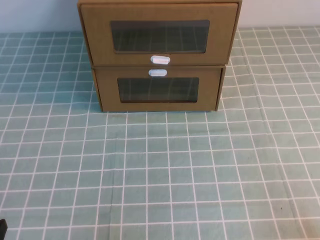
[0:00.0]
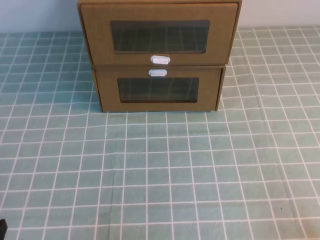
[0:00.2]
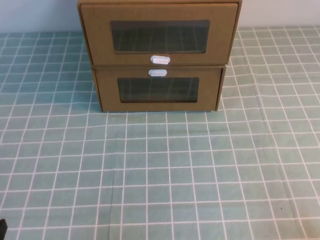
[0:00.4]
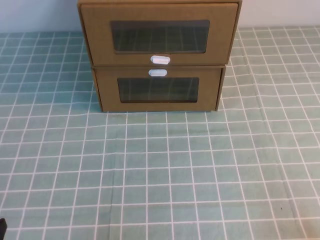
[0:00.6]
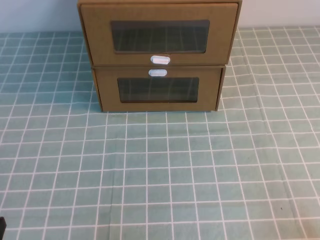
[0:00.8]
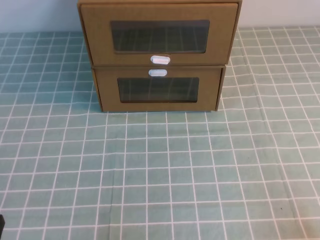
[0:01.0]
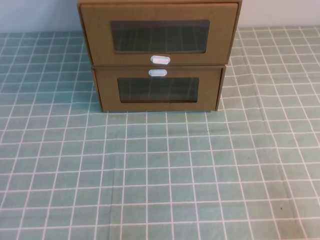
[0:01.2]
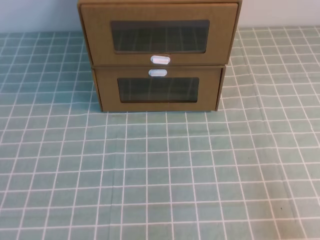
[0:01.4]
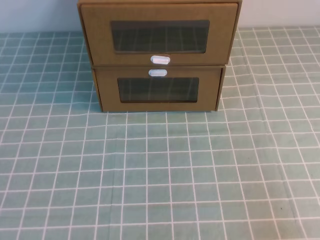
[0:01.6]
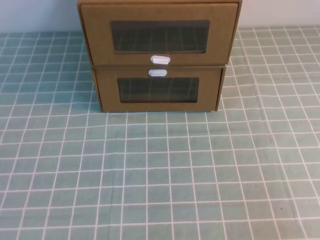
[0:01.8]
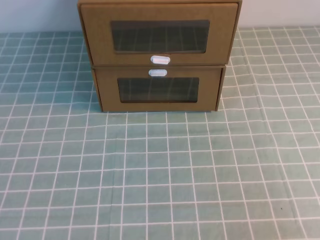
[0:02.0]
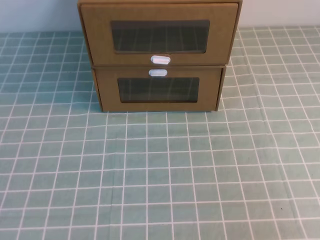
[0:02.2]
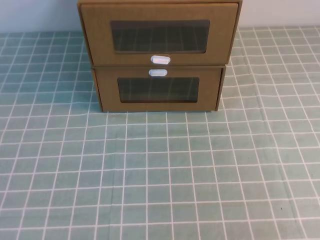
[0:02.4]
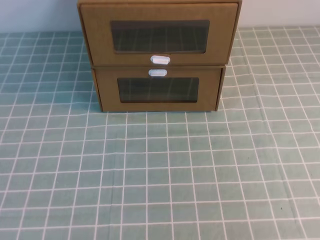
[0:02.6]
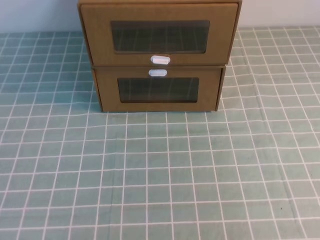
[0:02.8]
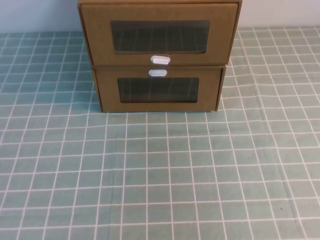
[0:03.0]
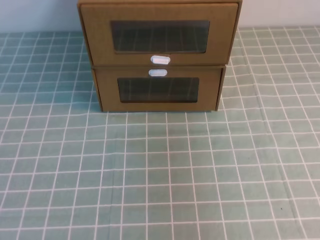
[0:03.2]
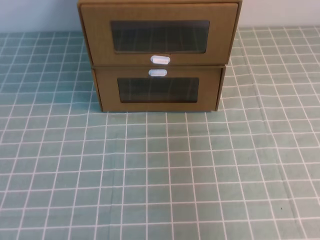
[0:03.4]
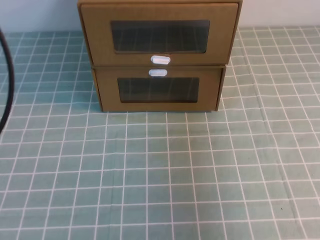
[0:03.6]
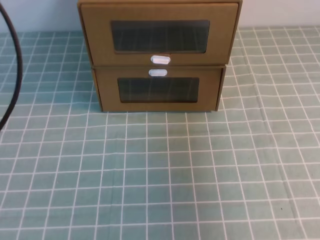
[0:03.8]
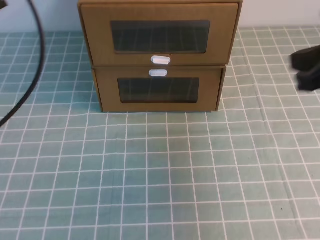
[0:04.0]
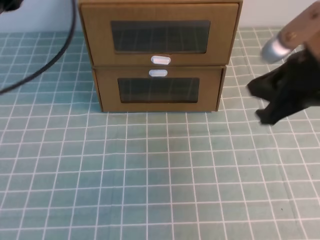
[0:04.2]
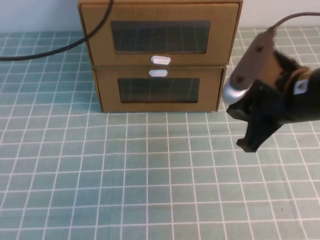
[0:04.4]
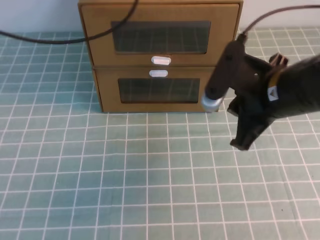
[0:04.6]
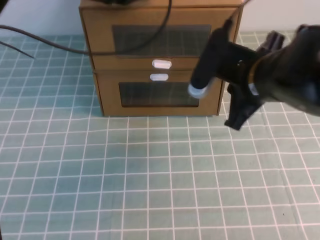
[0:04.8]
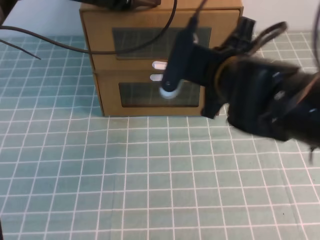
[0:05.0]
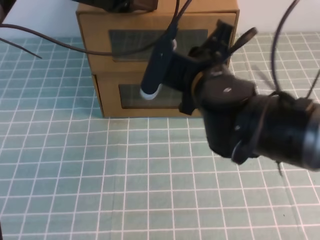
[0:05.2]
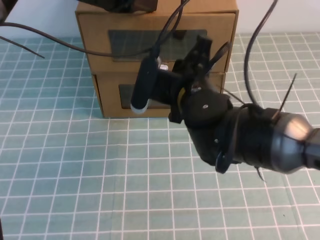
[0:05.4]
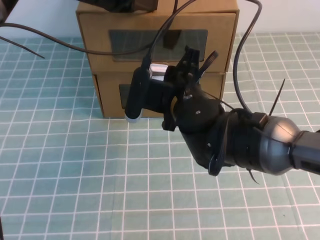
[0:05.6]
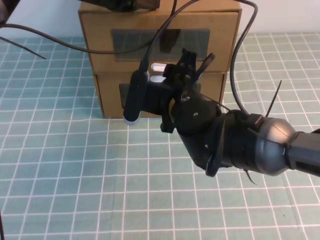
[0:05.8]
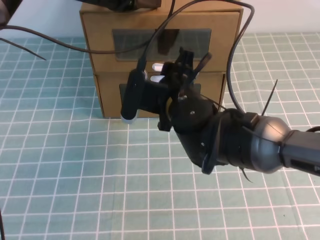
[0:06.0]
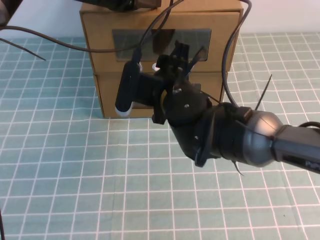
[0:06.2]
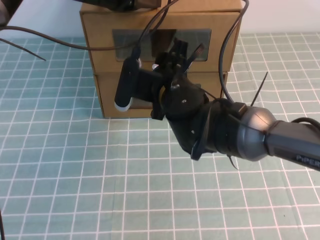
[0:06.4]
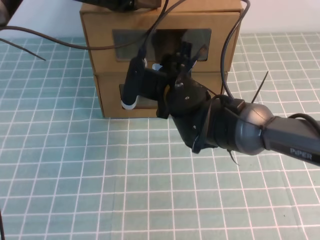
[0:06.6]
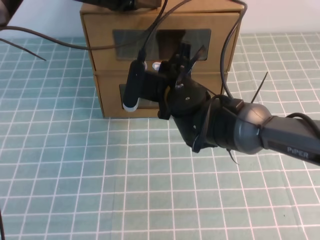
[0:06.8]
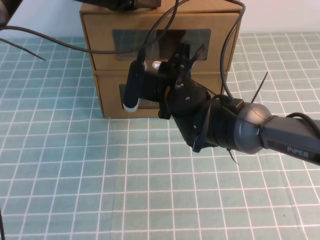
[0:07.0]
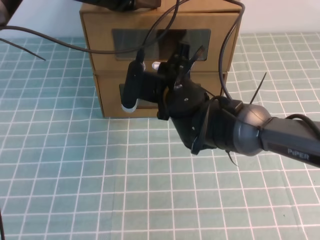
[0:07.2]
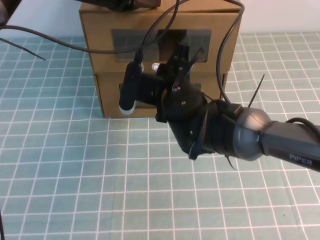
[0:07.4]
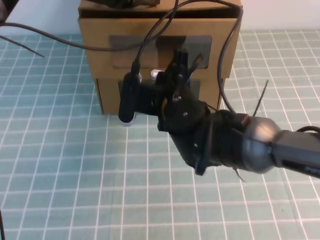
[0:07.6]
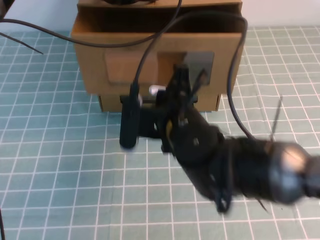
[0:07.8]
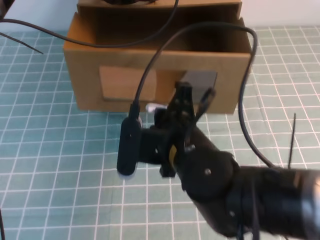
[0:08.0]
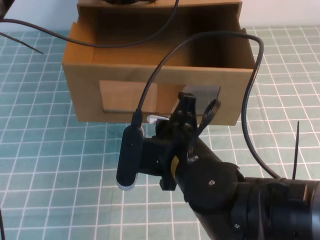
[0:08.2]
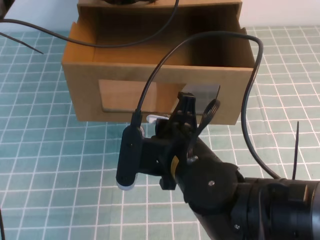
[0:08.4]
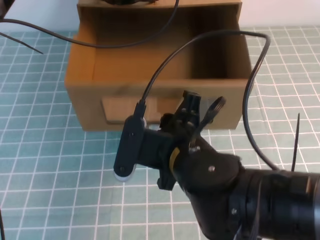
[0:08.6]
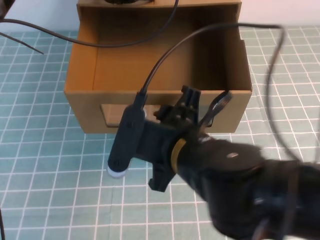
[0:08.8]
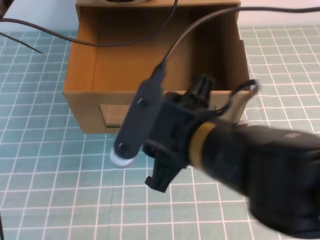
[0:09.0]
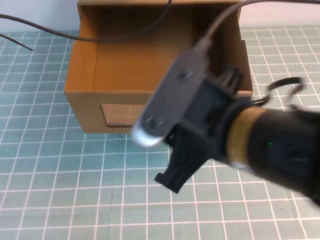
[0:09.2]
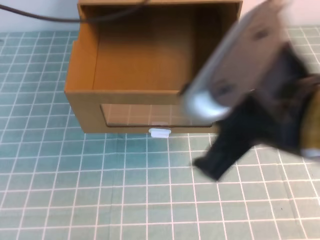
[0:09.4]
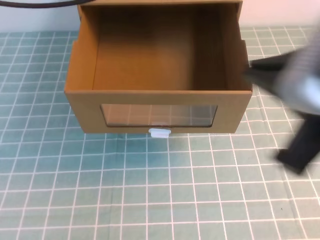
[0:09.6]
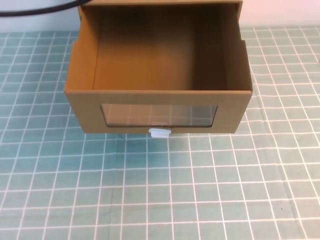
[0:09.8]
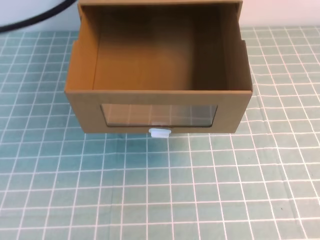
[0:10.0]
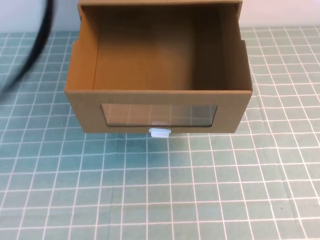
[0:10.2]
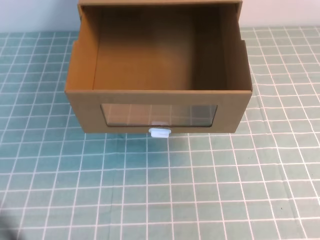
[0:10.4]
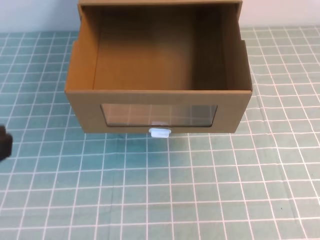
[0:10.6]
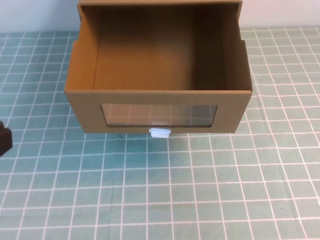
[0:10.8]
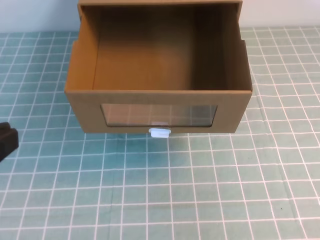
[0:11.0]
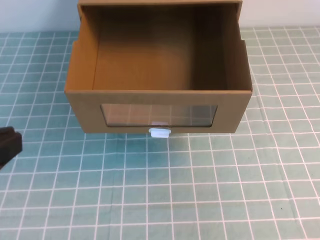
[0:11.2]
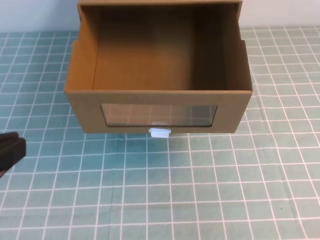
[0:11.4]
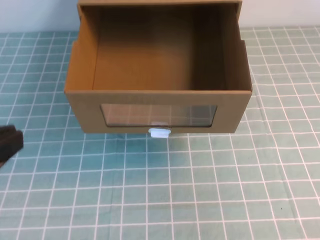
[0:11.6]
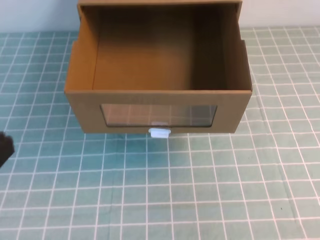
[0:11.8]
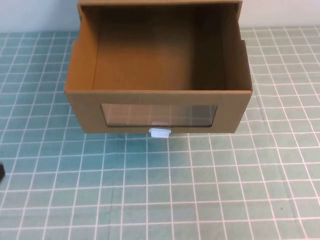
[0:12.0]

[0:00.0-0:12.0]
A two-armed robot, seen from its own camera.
Task of the whole recording: open the shoebox on the cyan tablecloth.
0:03.0 to 0:04.4: The right gripper shifts approximately 30 cm forward, downward and to the left. Meanwhile the left gripper goes some 30 cm forward.
0:04.4 to 0:06.0: The left gripper shifts approximately 10 cm to the right and forward. Meanwhile the right gripper moves to the left and forward, about 15 cm, and opens up.
0:06.0 to 0:07.6: The right gripper closes its fingers.
0:07.6 to 0:09.0: The right gripper heads backward and upward, covering some 15 cm, and opens up.
0:09.0 to 0:10.4: The right gripper goes about 25 cm to the right and backward, and closes up; the left gripper is displaced backward by approximately 35 cm.
0:10.4 to 0:12.0: The left gripper shifts roughly 20 cm downward.

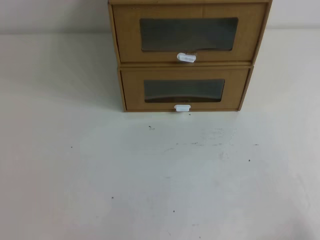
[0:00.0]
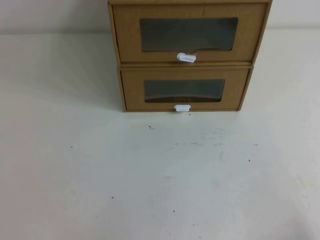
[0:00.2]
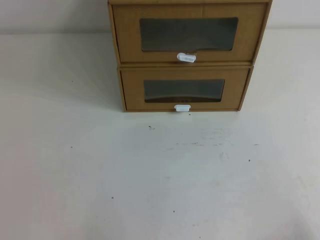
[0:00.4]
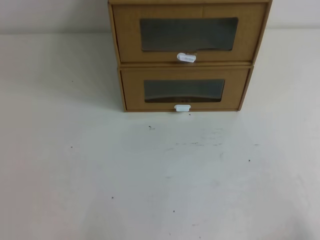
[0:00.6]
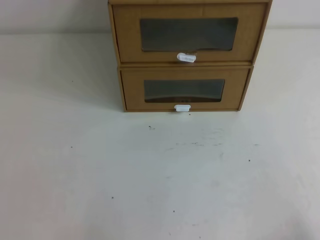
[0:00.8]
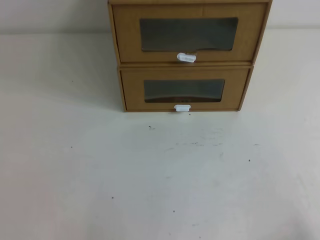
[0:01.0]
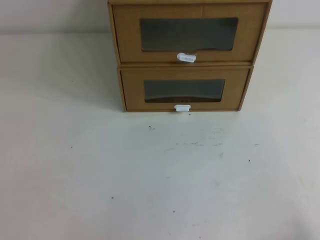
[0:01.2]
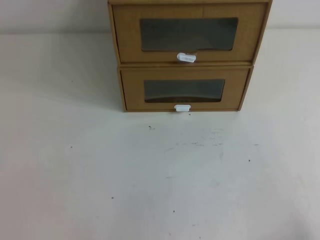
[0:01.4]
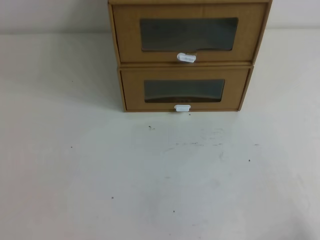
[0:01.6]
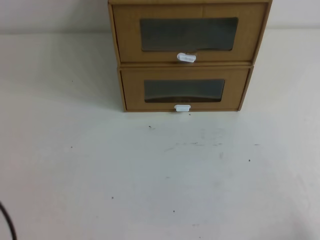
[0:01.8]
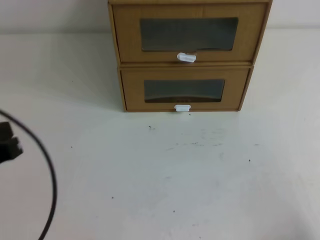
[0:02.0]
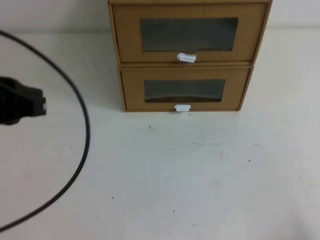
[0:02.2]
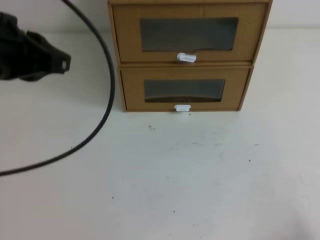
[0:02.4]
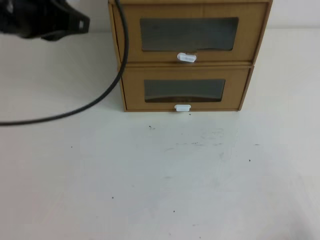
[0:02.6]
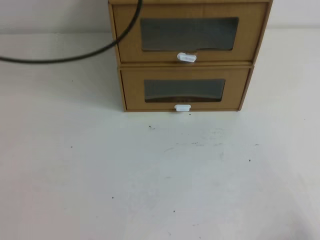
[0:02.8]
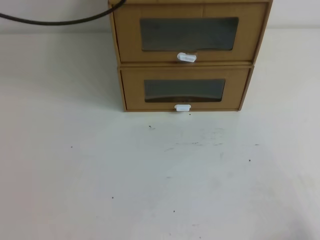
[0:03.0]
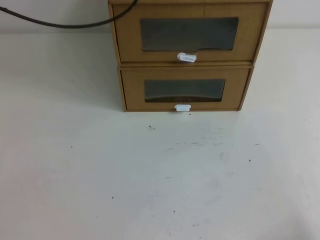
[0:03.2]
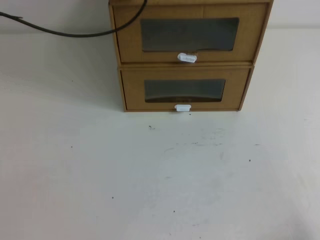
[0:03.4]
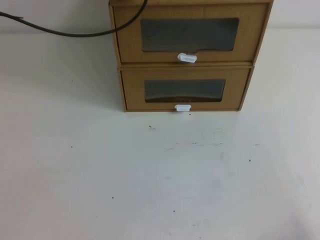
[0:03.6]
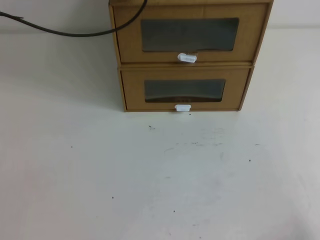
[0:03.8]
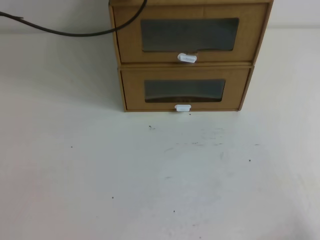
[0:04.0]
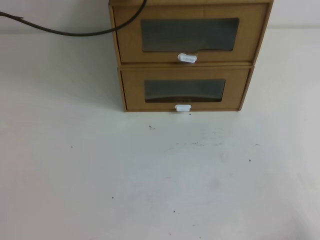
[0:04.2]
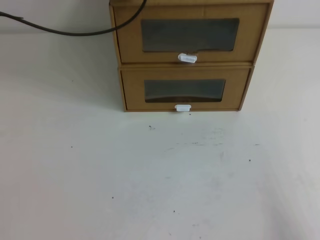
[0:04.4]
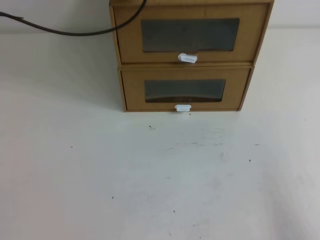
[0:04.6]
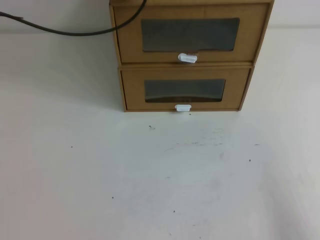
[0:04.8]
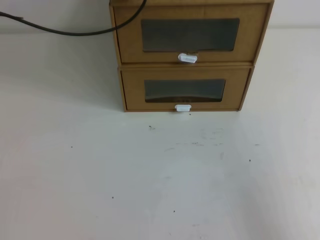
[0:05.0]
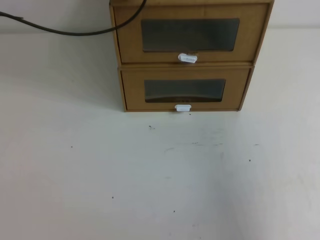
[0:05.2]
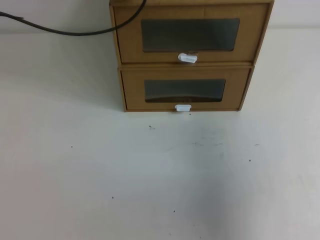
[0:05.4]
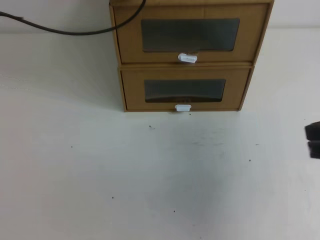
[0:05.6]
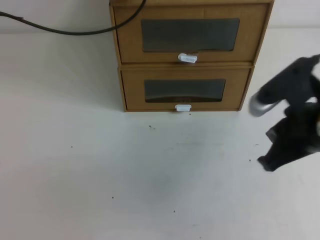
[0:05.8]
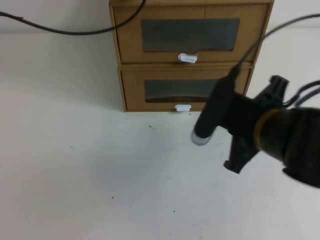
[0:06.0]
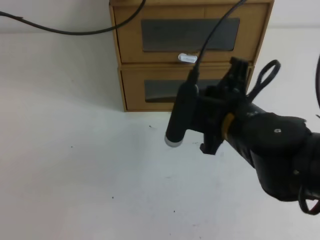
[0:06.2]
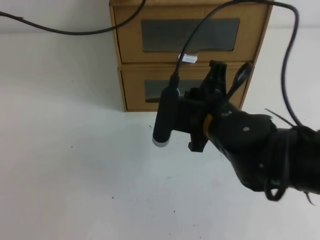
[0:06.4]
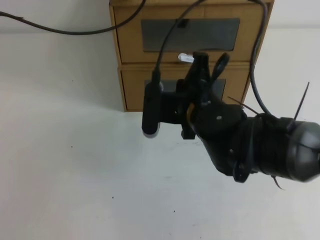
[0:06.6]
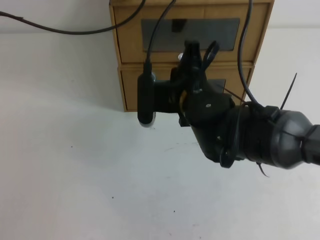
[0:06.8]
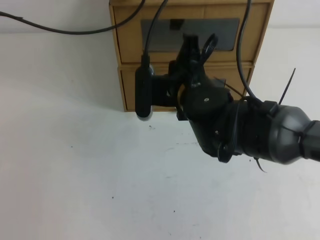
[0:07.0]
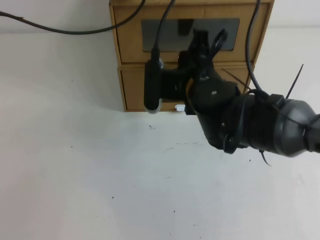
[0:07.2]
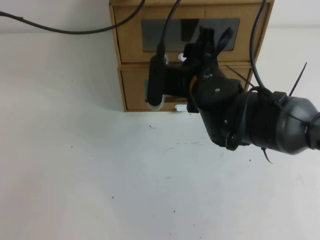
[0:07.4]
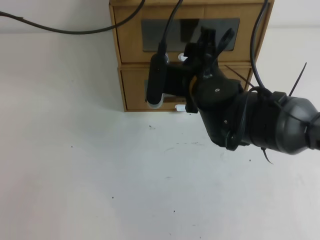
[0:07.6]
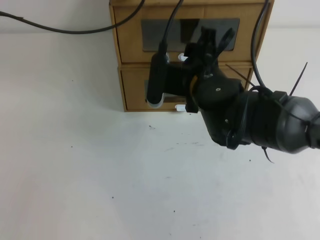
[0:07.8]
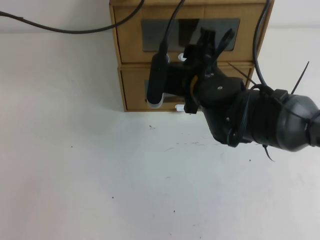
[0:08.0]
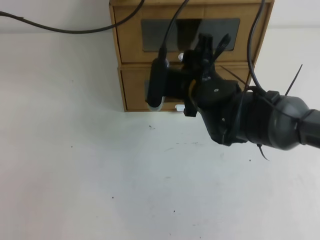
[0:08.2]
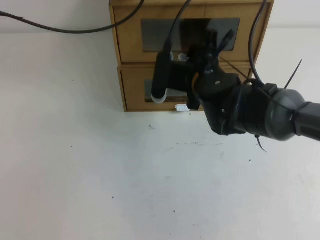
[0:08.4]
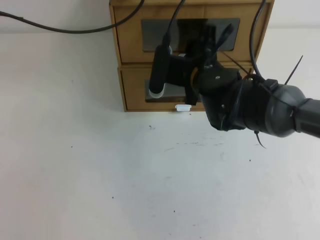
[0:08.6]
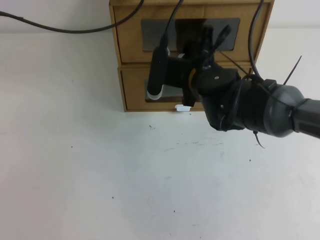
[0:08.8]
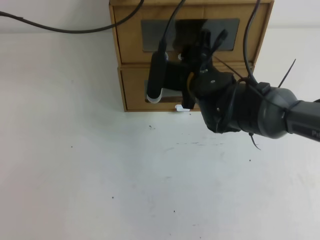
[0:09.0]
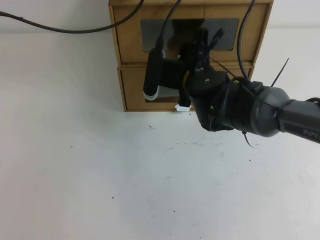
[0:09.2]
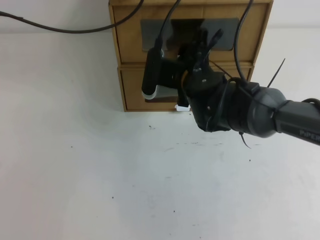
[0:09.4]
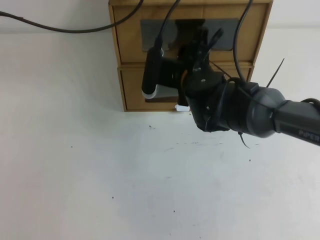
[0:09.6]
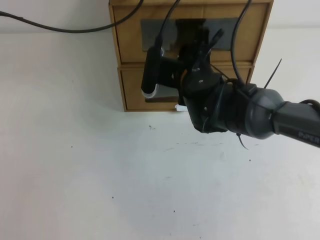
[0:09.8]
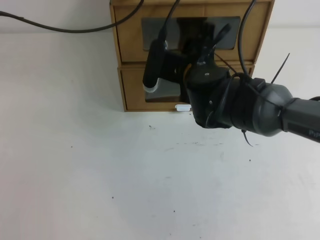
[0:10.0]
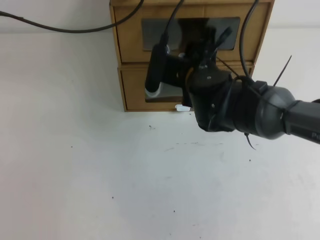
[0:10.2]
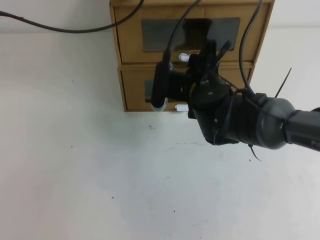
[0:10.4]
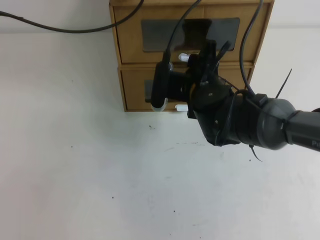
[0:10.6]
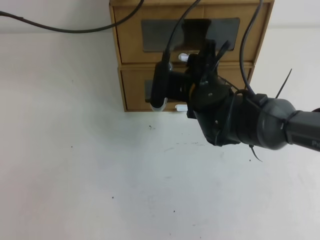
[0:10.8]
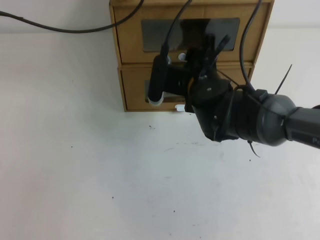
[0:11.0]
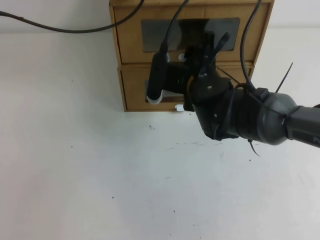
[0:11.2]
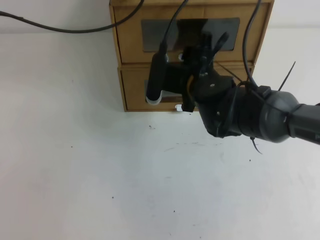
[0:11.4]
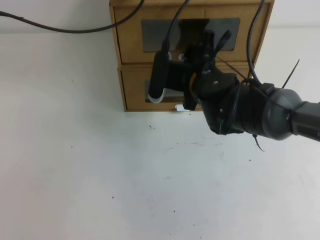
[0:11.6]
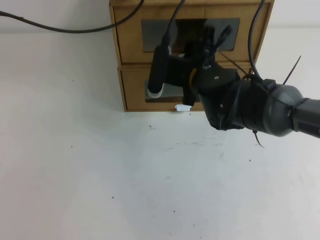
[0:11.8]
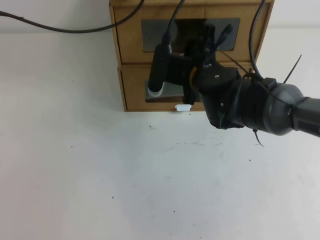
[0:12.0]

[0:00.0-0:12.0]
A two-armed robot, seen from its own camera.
Task of the whole recording: open the shoebox on the table.
0:01.6 to 0:03.0: The left gripper heads forward and upward, covering about 40 cm.
0:03.0 to 0:04.4: The left gripper heads forward and downward, covering about 10 cm.
0:04.4 to 0:06.0: The right gripper shifts about 25 cm forward, to the left and upward.
0:06.0 to 0:07.6: The right gripper shifts some 15 cm to the left and forward, and opens up.
0:07.6 to 0:12.0: The grippers make only small movements.
